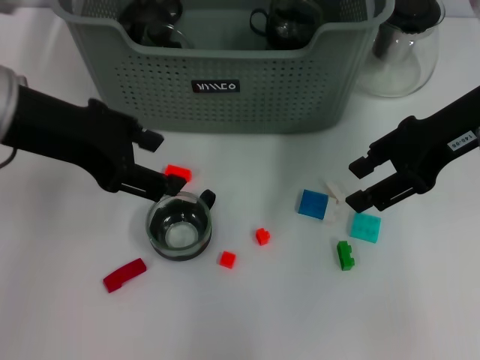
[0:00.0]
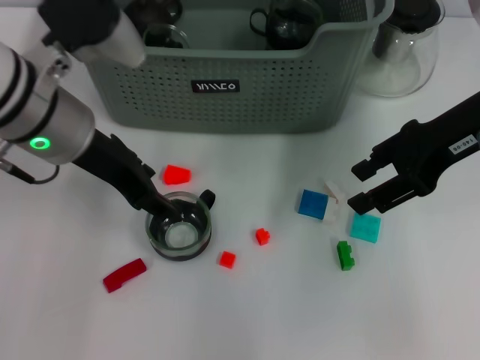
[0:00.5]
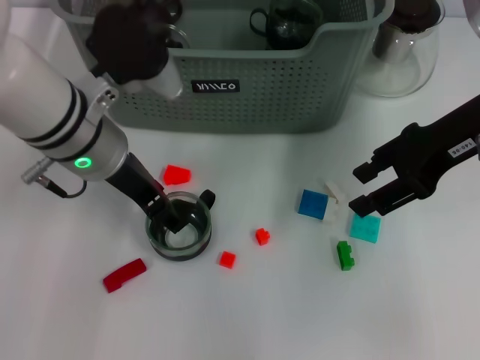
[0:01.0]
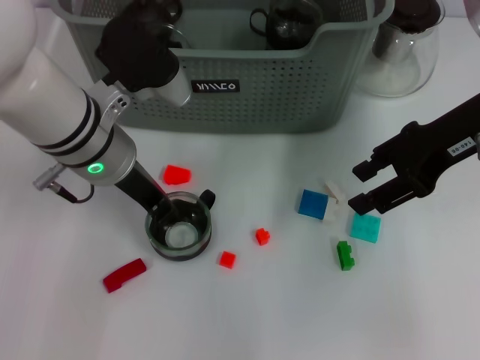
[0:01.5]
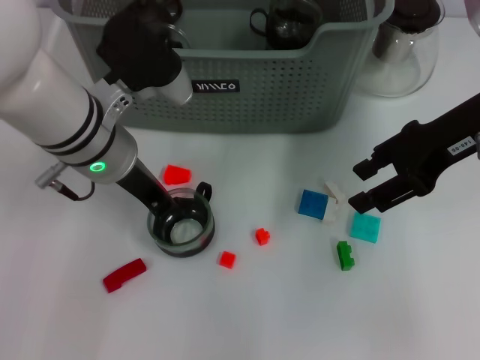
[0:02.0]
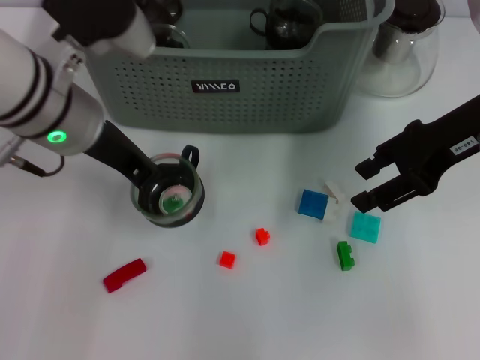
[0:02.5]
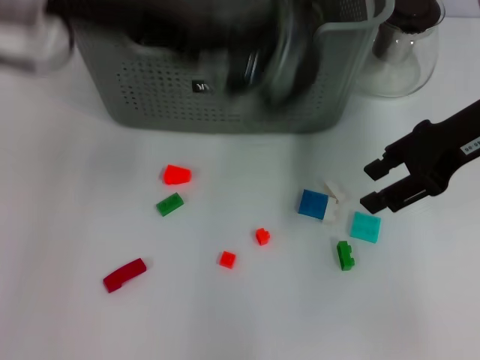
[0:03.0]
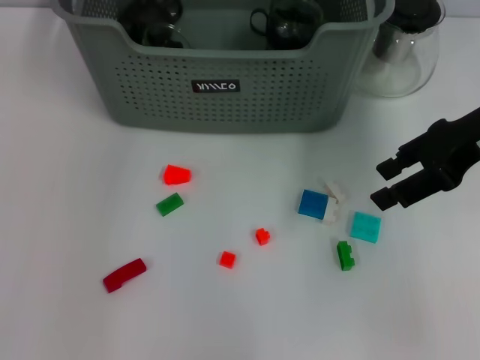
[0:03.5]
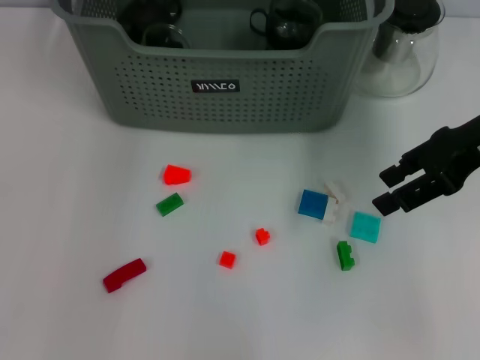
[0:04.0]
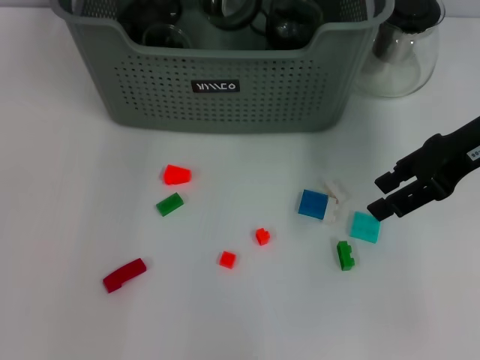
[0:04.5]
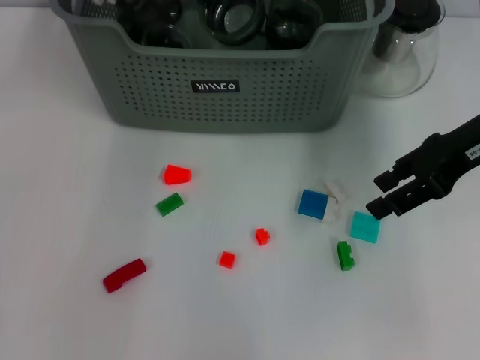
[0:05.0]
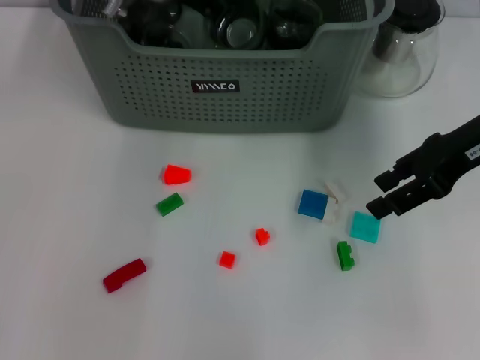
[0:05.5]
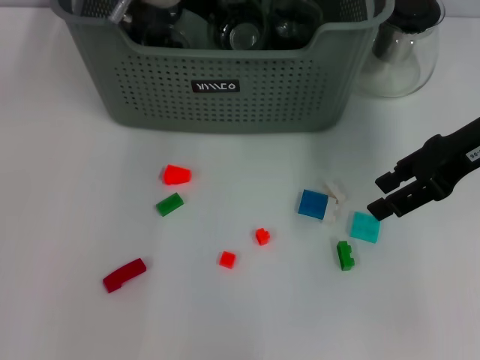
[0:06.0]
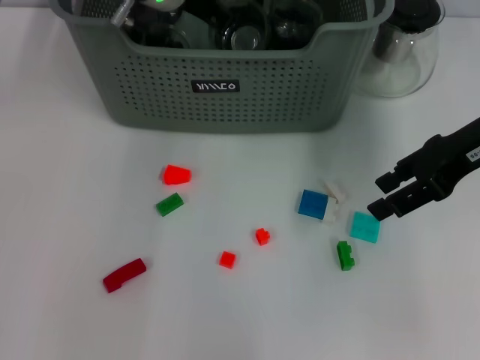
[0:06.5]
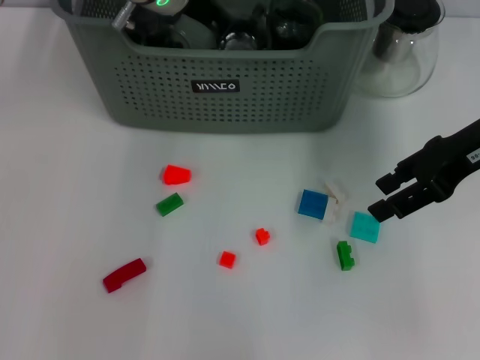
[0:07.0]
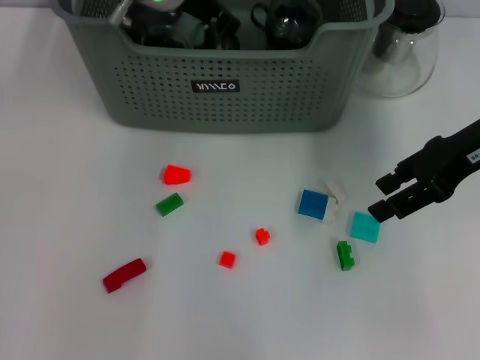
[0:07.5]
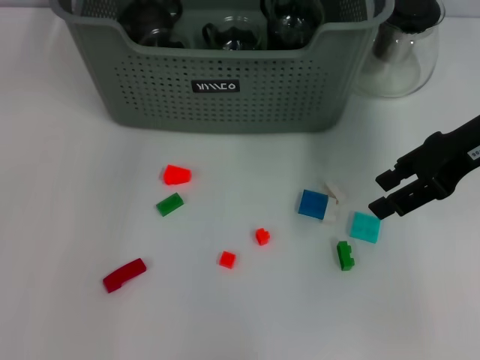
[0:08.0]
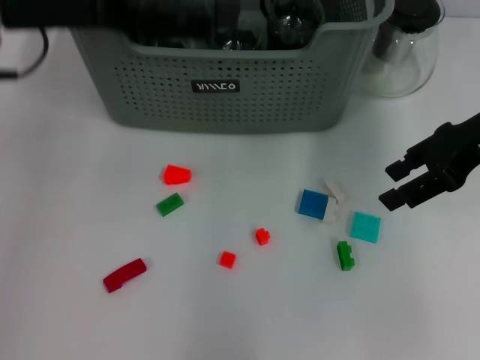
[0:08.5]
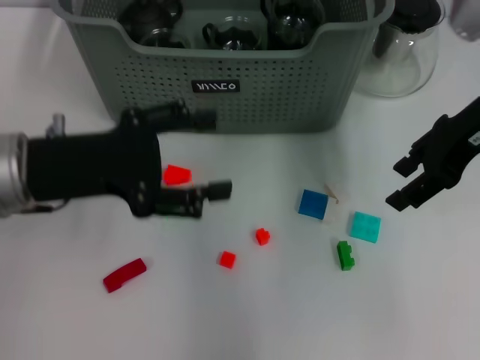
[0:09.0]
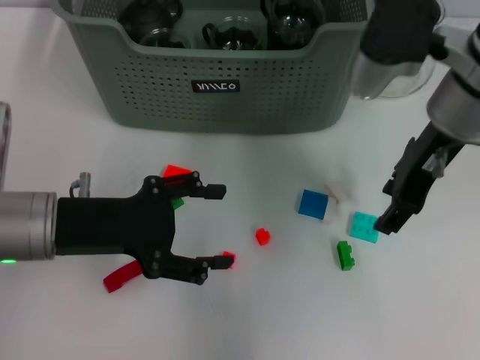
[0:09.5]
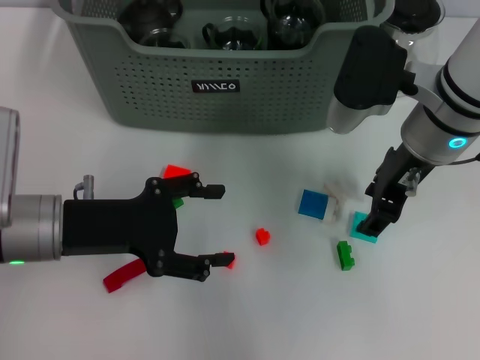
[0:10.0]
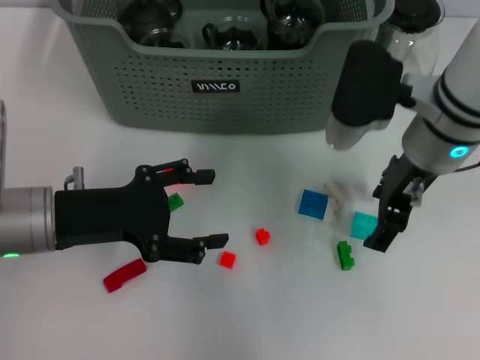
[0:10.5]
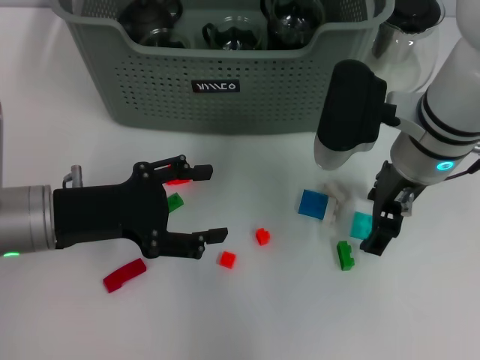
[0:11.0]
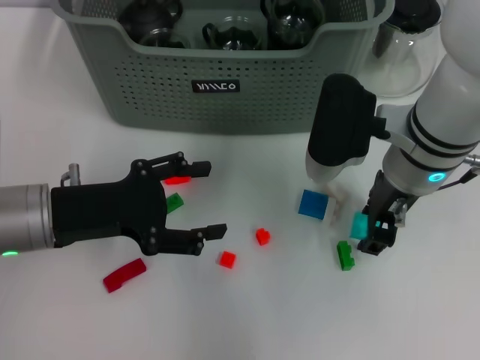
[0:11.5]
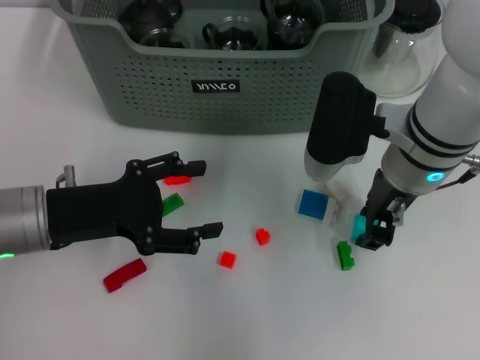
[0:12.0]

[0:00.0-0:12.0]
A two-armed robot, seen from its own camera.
Task of the whole recording: pick up the teacup on the table and place it into the storage bin, pick up the block on the table and place it into the storage bin.
Step, 0:00.0 to 0:02.0: Grasp the cup with left gripper.
Step, 0:02.5 to 0:07.5: Place the cup in the storage box with left gripper.
Step, 0:08.0 to 0:12.0: Grasp the light blue block with right gripper.
0:00.0 to 0:02.0: The left gripper heads downward and to the right, covering roughly 10 cm, and closes its fingers.
0:02.0 to 0:04.0: The left gripper is displaced forward and upward by approximately 20 cm.
0:04.0 to 0:06.0: The left gripper is displaced downward by roughly 5 cm.
0:06.0 to 0:08.0: The left gripper goes approximately 10 cm upward, and opens up.
0:08.0 to 0:10.0: The right gripper is displaced to the left by roughly 10 cm. Meanwhile the left gripper heads downward and backward, covering some 25 cm.
0:10.0 to 0:12.0: The grippers make only small movements.

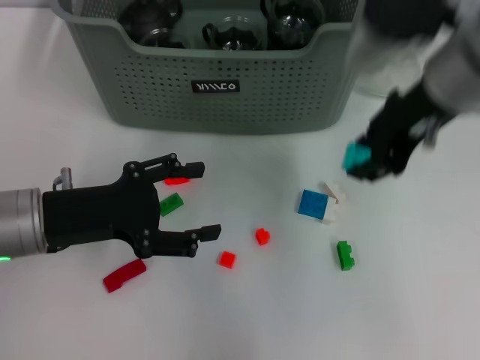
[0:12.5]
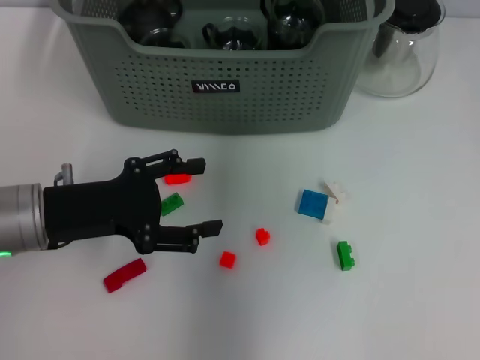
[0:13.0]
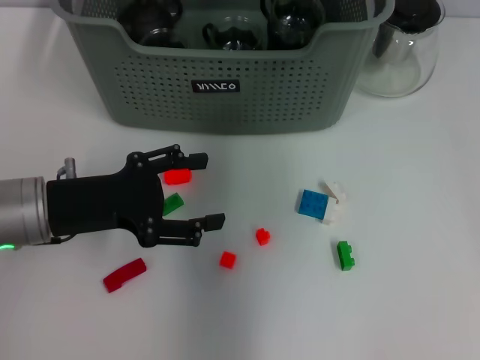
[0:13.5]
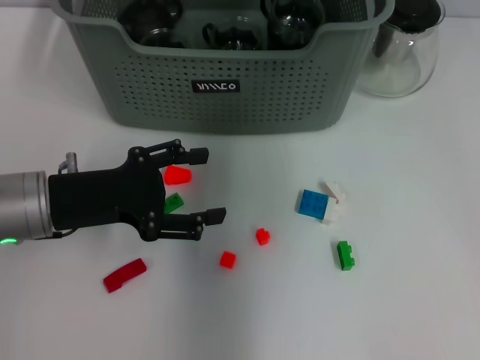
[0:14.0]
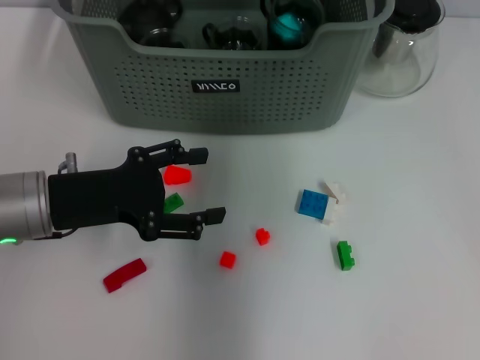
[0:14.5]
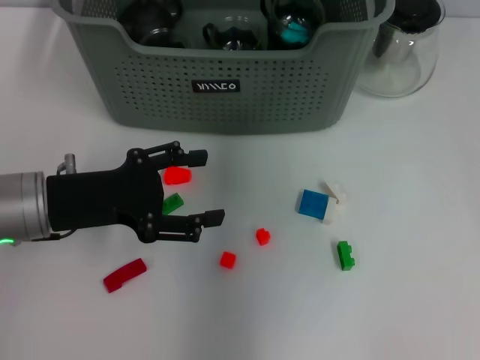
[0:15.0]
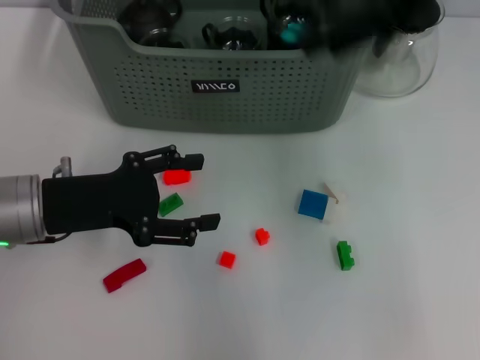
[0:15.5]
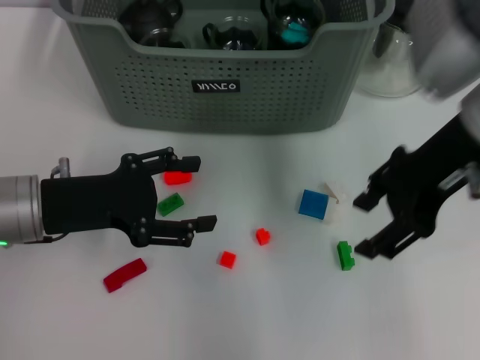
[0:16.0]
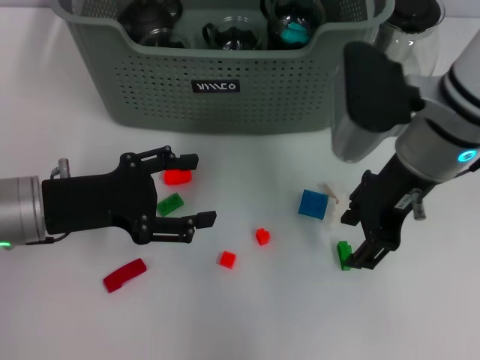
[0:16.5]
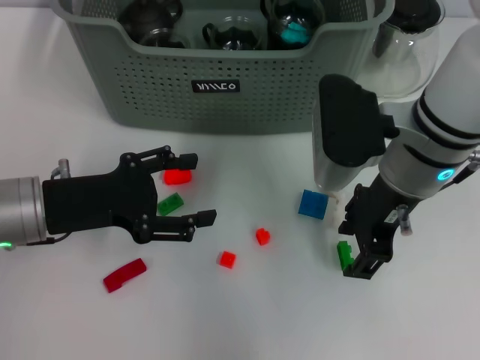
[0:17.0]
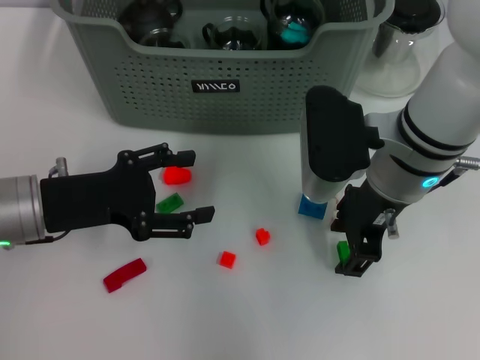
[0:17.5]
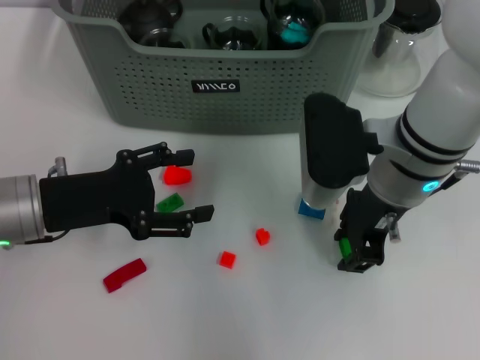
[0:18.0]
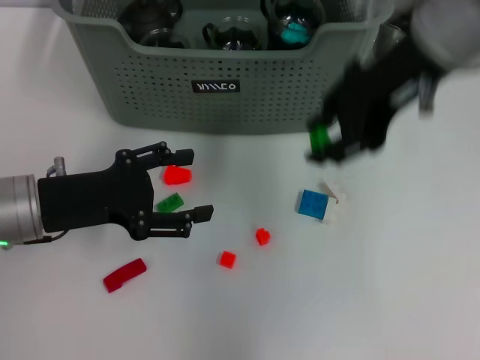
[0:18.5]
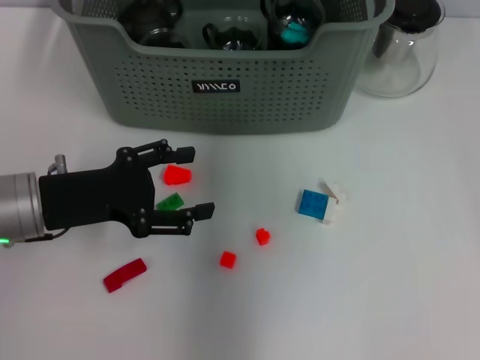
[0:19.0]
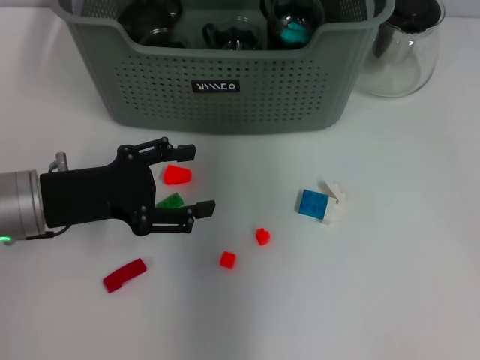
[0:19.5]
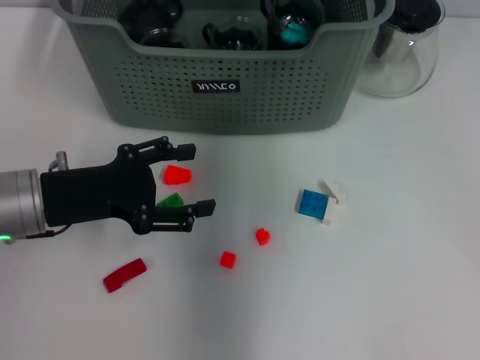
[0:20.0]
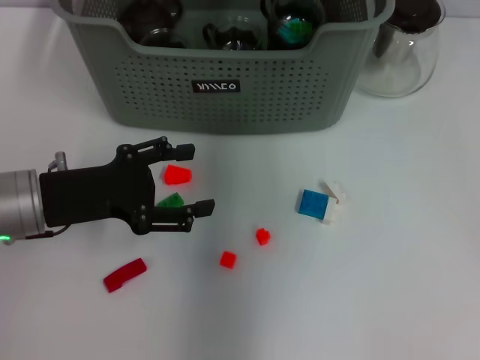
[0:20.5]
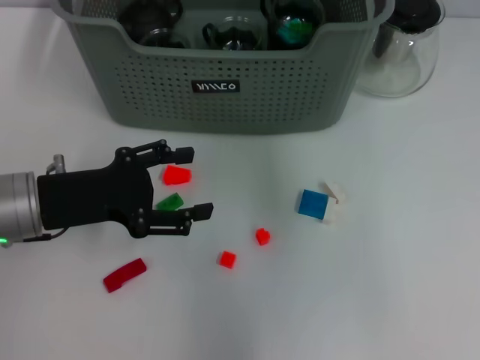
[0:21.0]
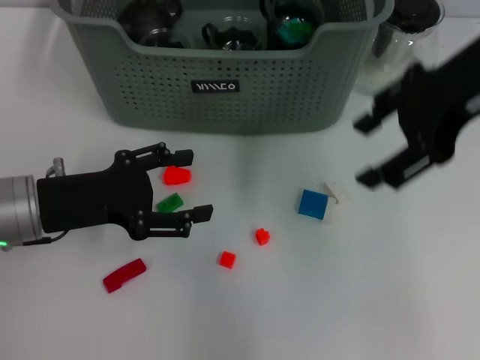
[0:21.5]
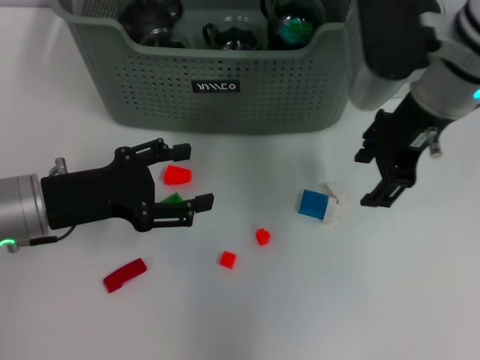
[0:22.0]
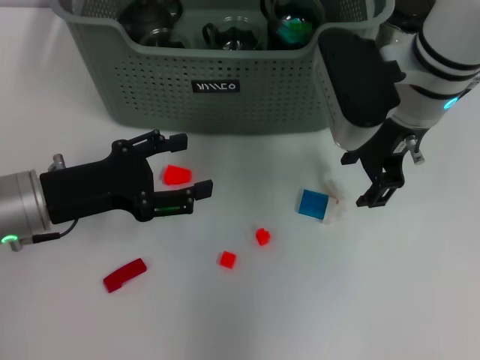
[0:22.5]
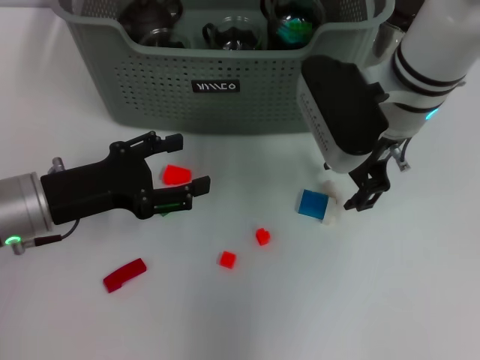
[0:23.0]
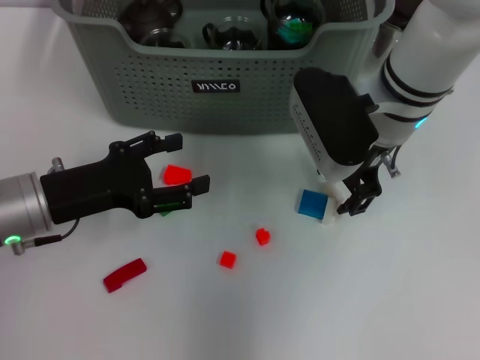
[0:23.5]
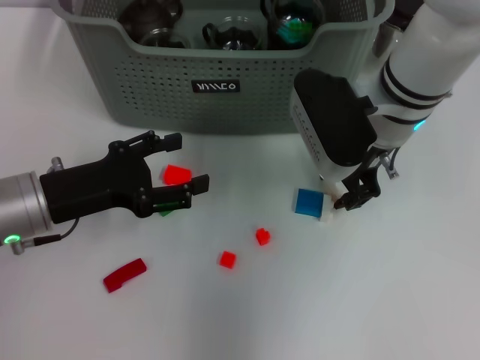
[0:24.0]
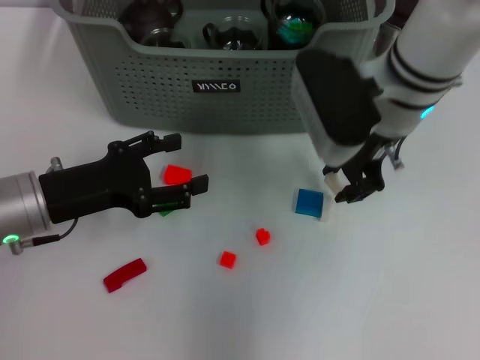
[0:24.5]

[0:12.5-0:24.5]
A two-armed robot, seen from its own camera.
Task of the whole recording: pick up the teacup on the table and place it into the storage bin, pick up the block on the table and place it into the storage bin.
Step, 0:12.5 to 0:14.5: Place the light blue block in the storage box with right gripper.
Step, 0:15.0 to 0:17.5: Grasp the green block with right gripper.
Step, 0:18.0 to 0:20.0: Place the green block in the storage box with right gripper.
Step, 0:20.5 to 0:24.0: Grasp the white block with right gripper.
0:12.5 to 0:14.5: The right gripper heads forward, covering about 15 cm.
0:14.5 to 0:16.5: The right gripper moves backward and downward, approximately 15 cm.
0:16.5 to 0:18.5: The right gripper travels upward by about 10 cm.
0:18.5 to 0:20.5: The right gripper goes roughly 15 cm forward.
0:20.5 to 0:22.5: The right gripper heads downward and backward, covering roughly 15 cm.
0:22.5 to 0:24.5: The right gripper closes its fingers.

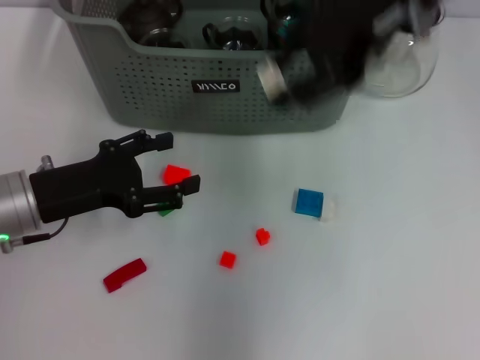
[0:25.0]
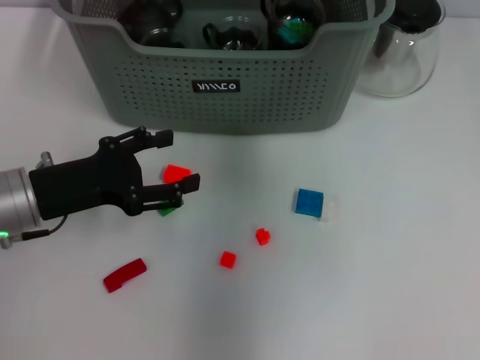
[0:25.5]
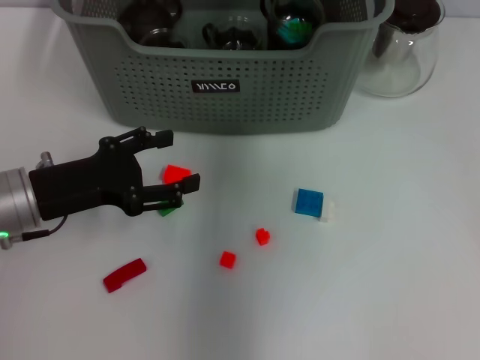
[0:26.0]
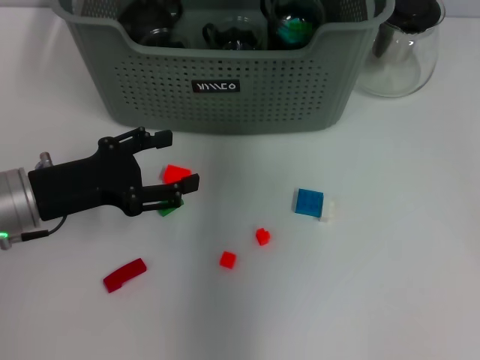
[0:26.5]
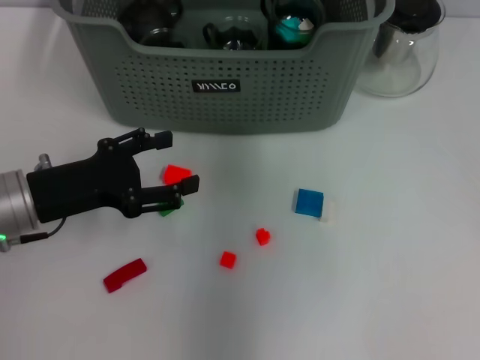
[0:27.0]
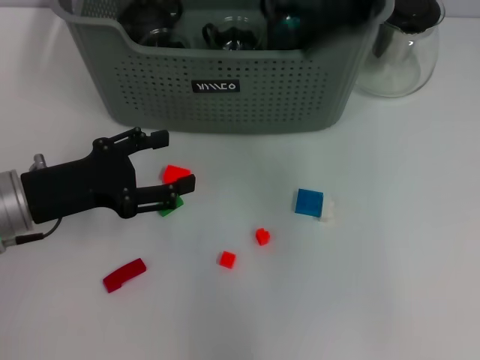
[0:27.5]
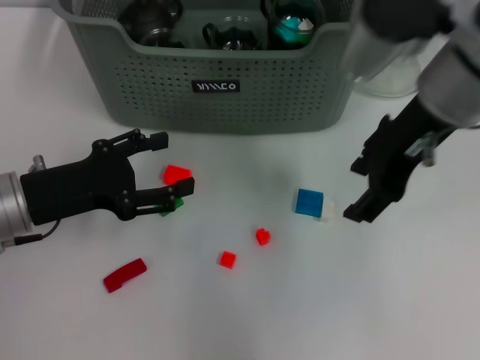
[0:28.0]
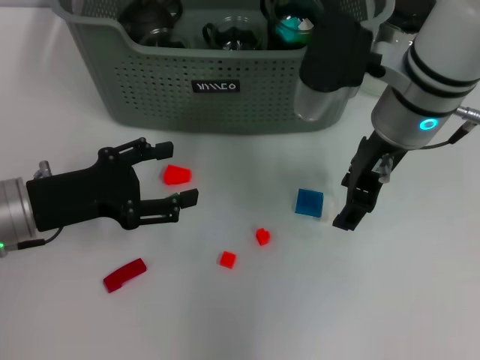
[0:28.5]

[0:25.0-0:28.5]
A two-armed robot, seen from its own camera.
Task of the whole recording: pick up the teacup on the table and place it into the storage bin, pick up the block on the table and place it into the storage bin.
Step, 0:25.0 to 0:26.5: Place the white block in the storage box with right gripper.
0:25.0 to 0:27.0: The right gripper goes about 10 cm forward, and opens its fingers.
0:27.0 to 0:28.5: The right gripper travels downward and backward by some 15 cm.
